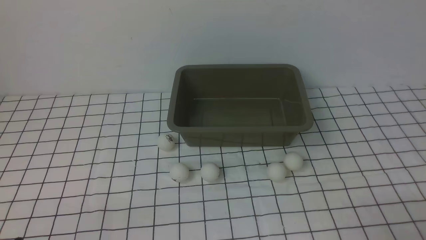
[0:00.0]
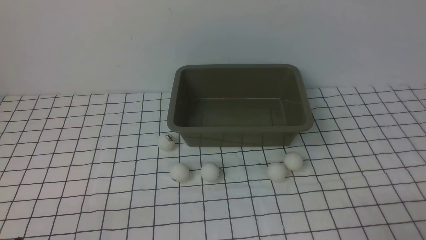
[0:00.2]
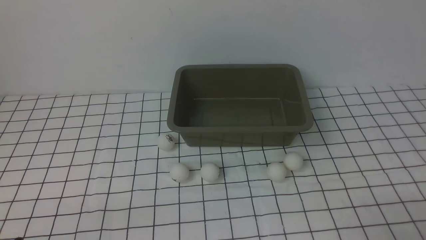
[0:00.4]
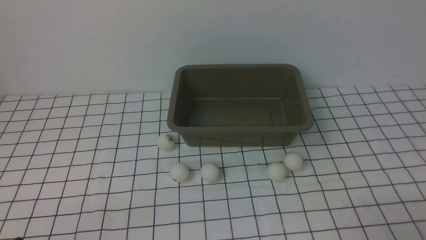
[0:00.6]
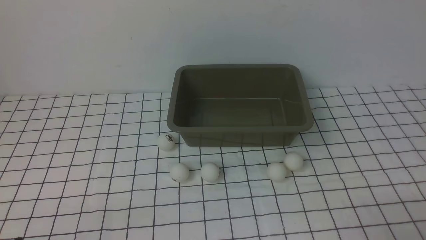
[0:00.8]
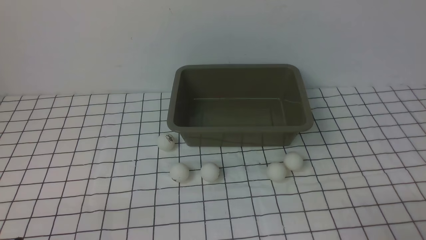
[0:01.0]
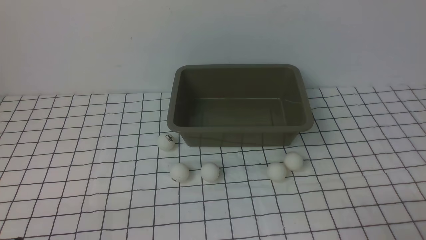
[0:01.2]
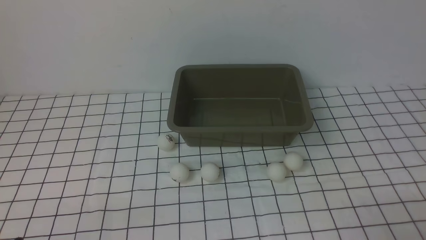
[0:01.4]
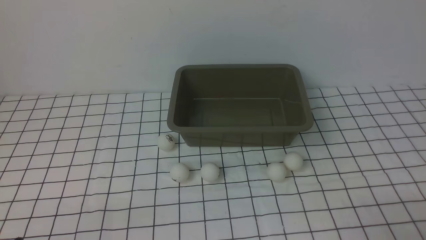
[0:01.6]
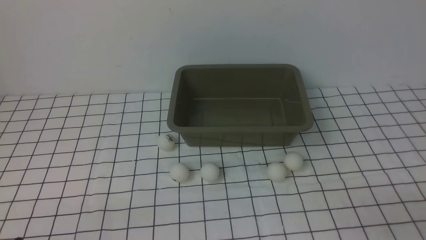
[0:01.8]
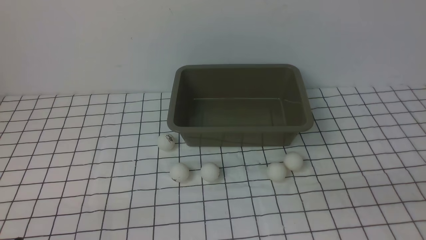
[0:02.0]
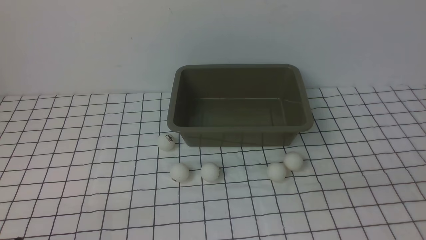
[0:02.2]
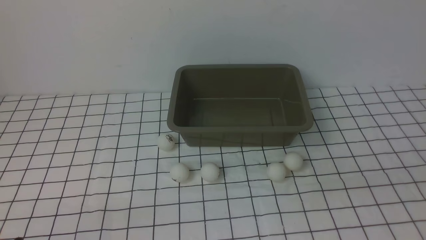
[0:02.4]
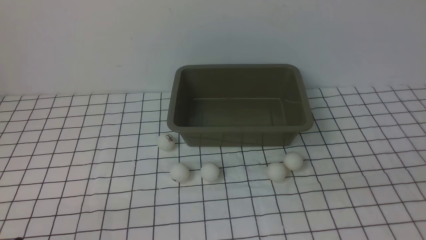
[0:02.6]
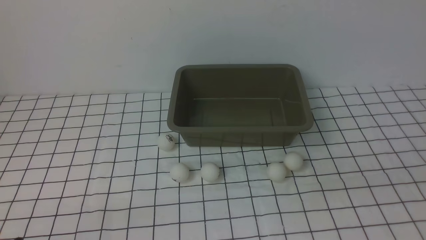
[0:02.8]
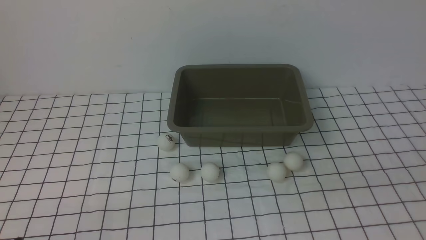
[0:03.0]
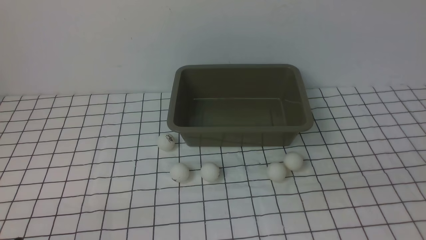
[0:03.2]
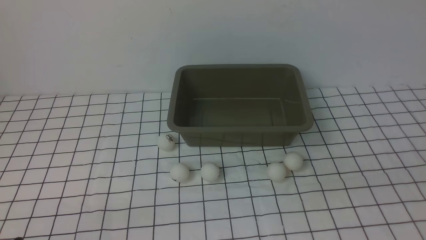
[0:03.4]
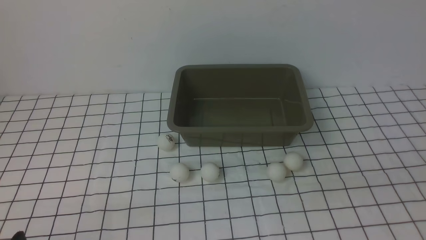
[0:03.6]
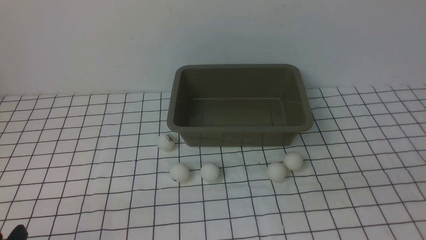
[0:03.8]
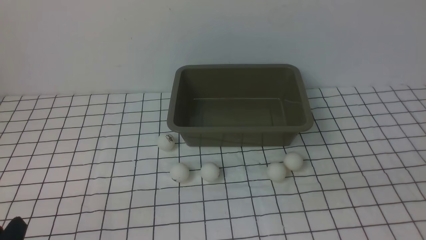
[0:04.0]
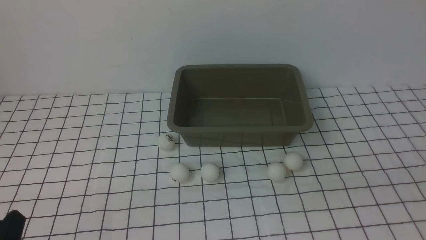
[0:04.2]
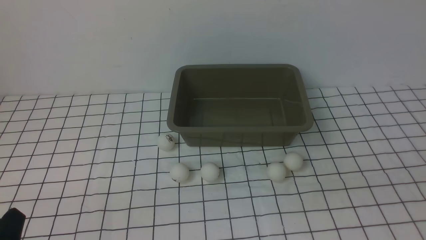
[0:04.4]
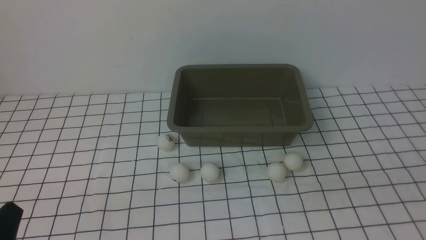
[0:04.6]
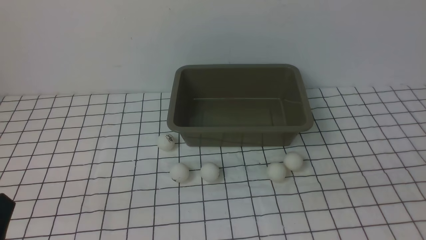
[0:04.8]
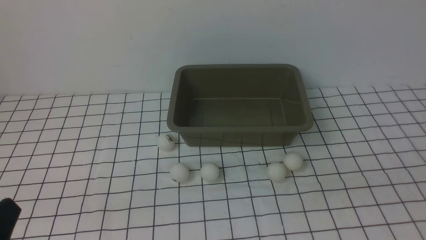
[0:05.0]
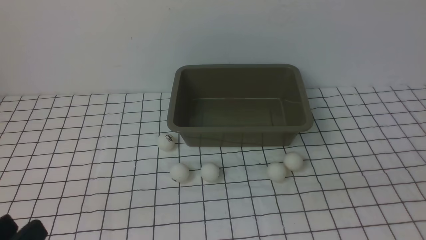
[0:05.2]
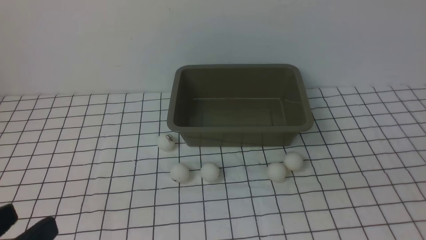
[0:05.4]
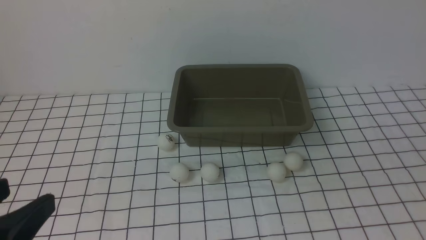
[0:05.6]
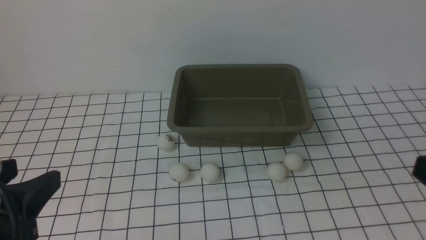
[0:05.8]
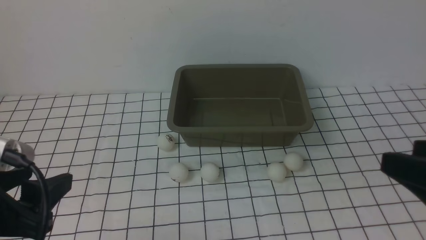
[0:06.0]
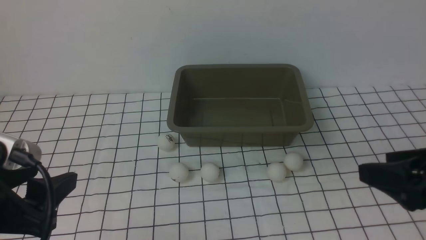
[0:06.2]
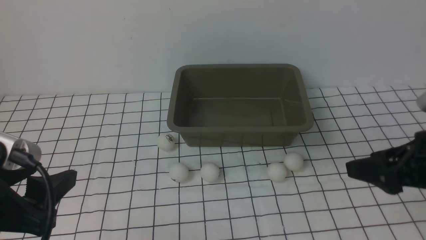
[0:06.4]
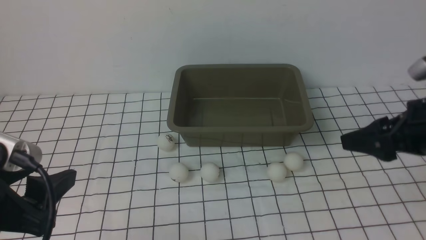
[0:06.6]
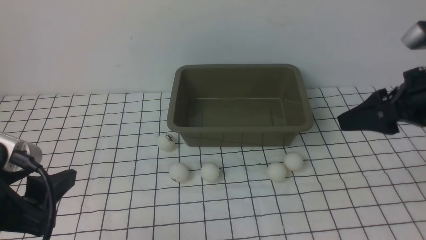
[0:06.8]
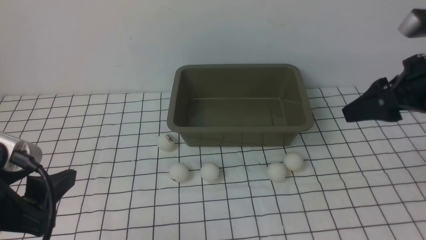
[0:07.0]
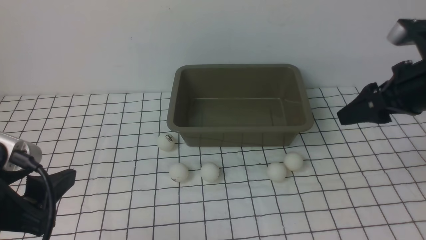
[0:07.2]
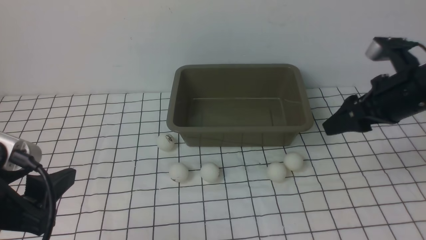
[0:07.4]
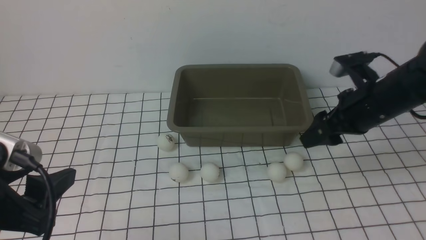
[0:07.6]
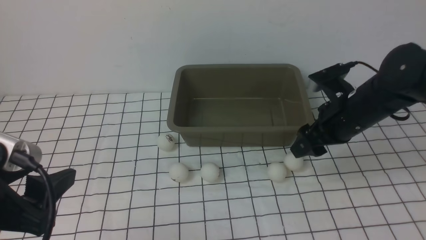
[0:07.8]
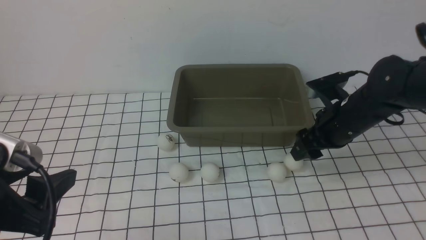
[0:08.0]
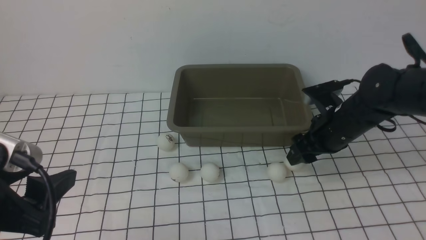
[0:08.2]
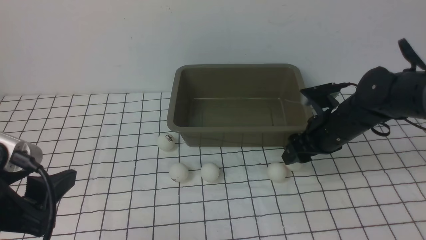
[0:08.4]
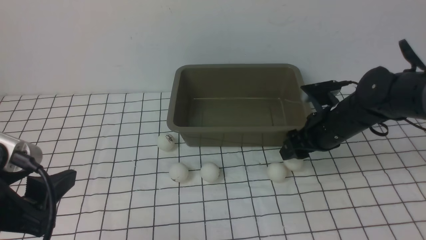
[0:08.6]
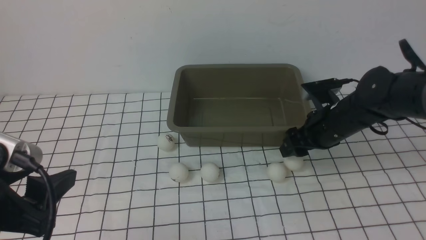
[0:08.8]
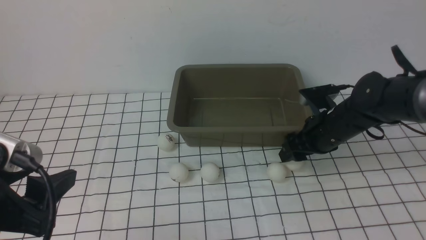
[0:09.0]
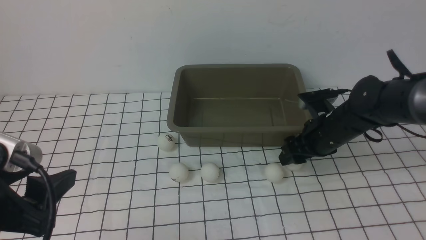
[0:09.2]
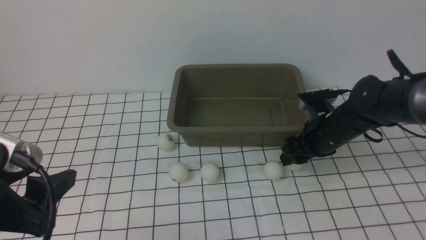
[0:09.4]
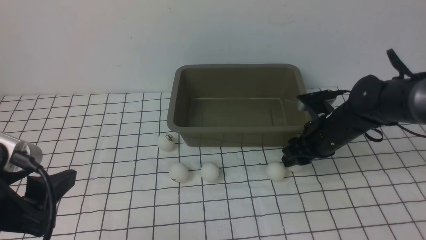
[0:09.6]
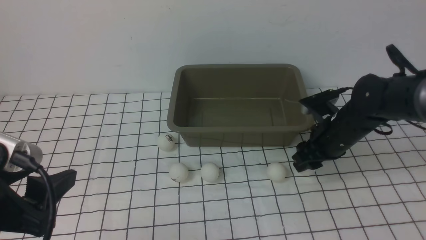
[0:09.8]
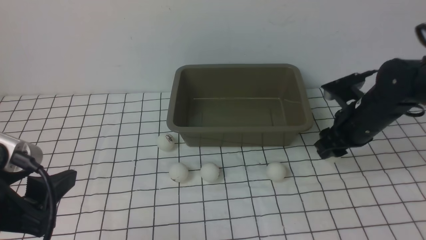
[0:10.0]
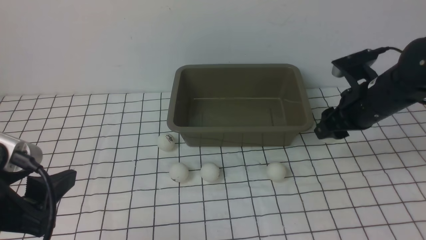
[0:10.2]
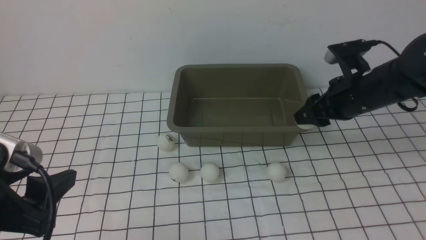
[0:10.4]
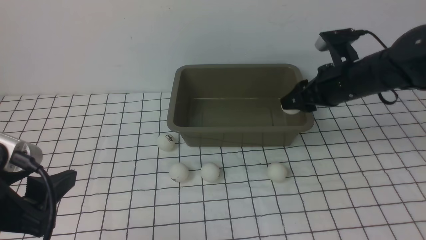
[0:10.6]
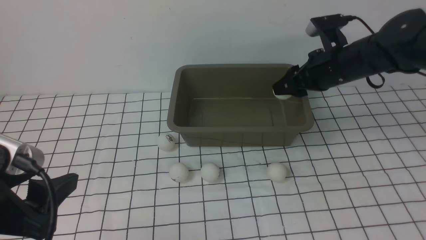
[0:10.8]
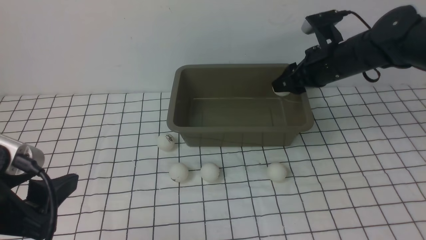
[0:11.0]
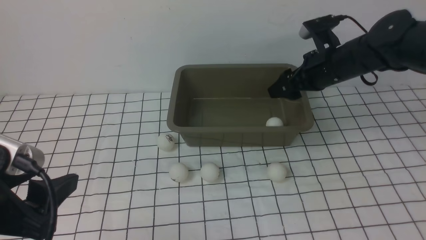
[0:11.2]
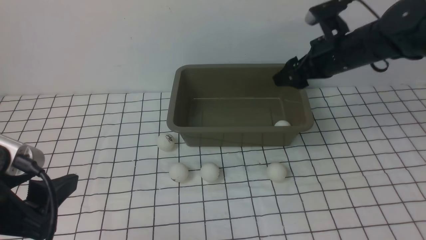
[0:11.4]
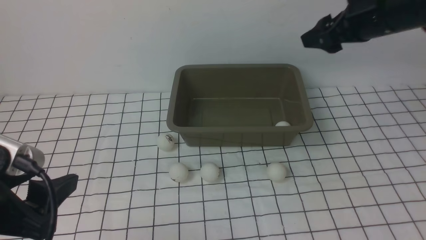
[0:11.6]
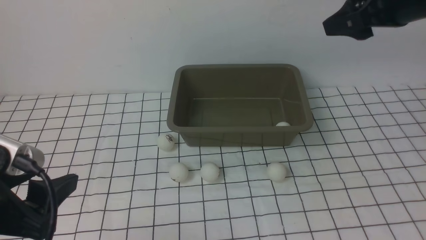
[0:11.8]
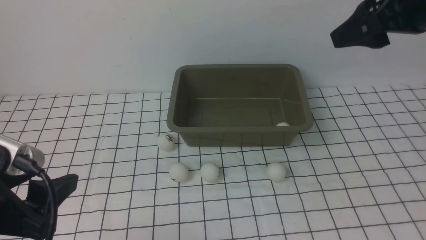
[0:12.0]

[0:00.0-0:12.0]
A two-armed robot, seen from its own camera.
Step, 0:00.0 to 0:10.0: use the right arm to clamp the table tennis ball closest to it.
Step, 0:10.2 to 0:11.2: use the right arm to put the table tennis ball into the box.
0:00.0 to 0:01.6: The two grippers keep their place.
0:04.4 to 0:06.0: The right gripper is displaced forward by about 10 cm. The left gripper moves upward and forward, about 10 cm, and opens.
0:06.0 to 0:07.6: The right gripper heads forward, covering roughly 20 cm.
0:07.6 to 0:09.0: The right gripper shifts about 10 cm downward.
0:09.0 to 0:10.4: The right gripper is displaced upward by approximately 10 cm, and closes.
0:10.4 to 0:12.0: The right gripper heads upward, covering roughly 15 cm, and opens up.

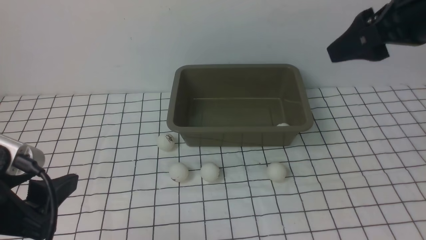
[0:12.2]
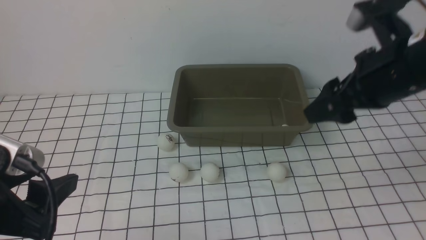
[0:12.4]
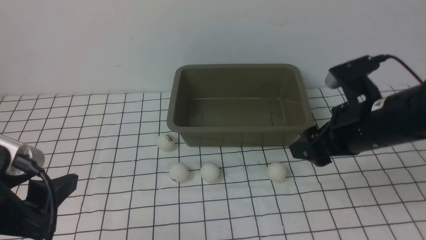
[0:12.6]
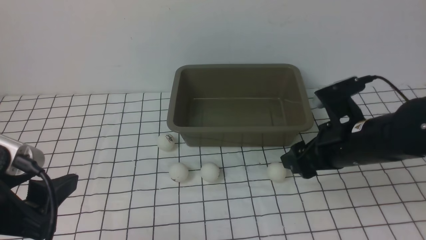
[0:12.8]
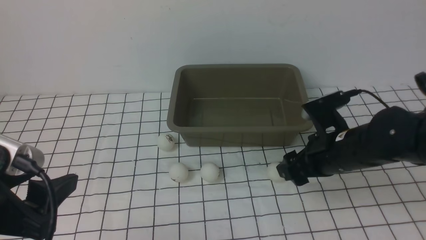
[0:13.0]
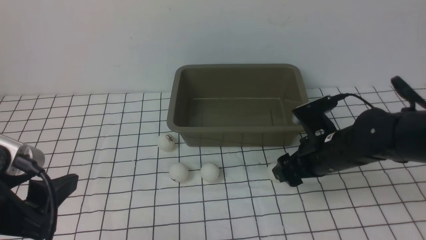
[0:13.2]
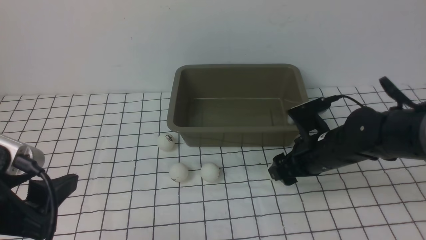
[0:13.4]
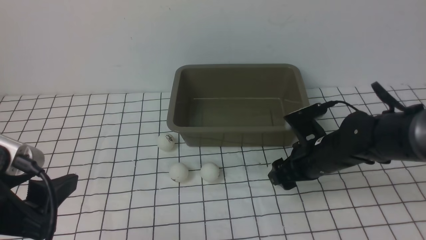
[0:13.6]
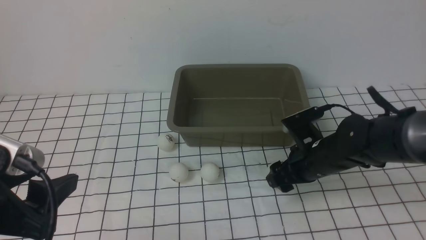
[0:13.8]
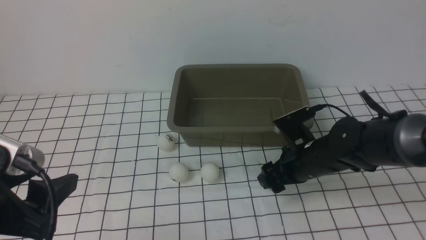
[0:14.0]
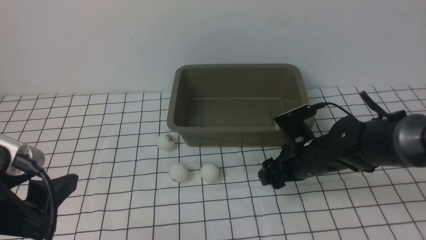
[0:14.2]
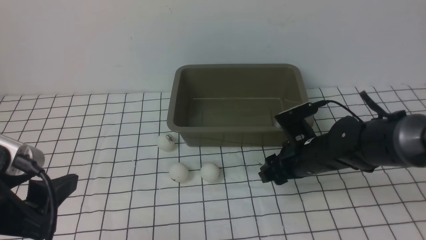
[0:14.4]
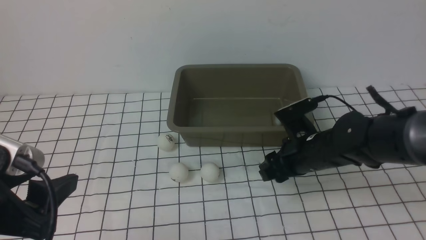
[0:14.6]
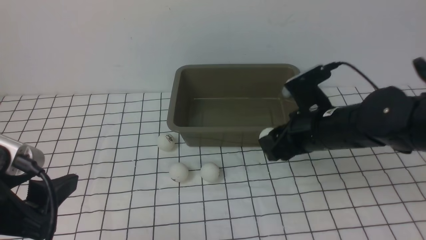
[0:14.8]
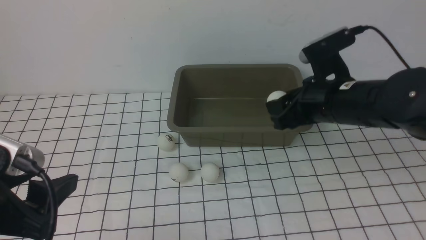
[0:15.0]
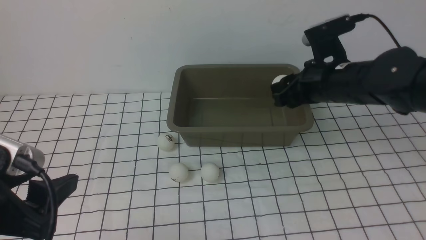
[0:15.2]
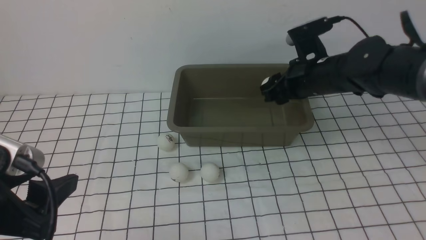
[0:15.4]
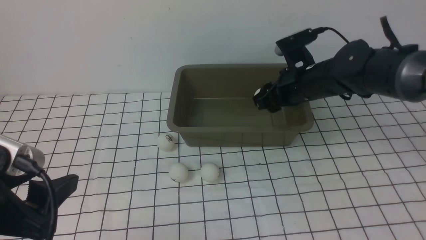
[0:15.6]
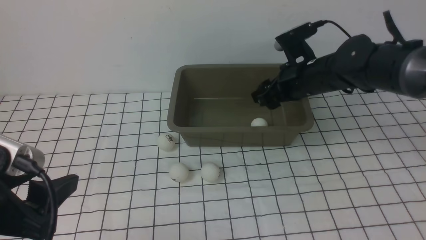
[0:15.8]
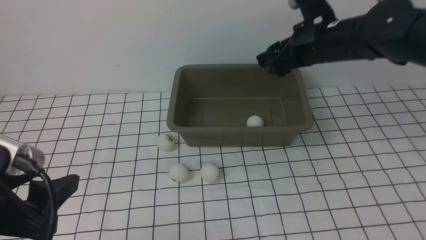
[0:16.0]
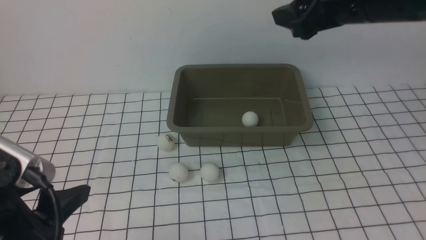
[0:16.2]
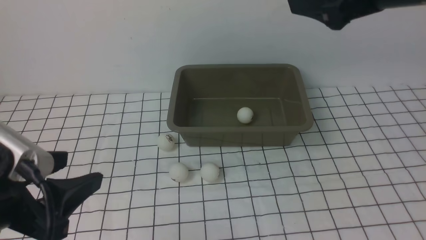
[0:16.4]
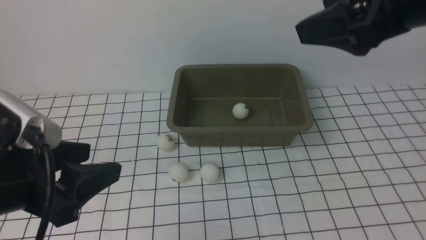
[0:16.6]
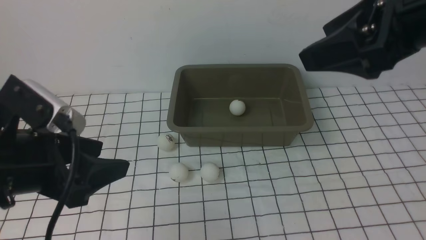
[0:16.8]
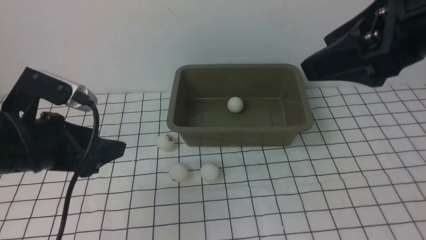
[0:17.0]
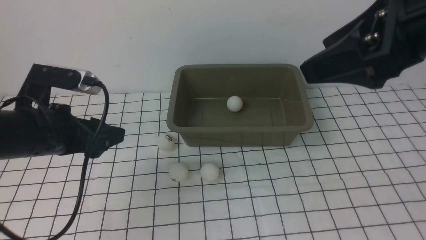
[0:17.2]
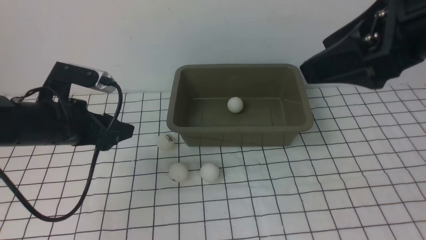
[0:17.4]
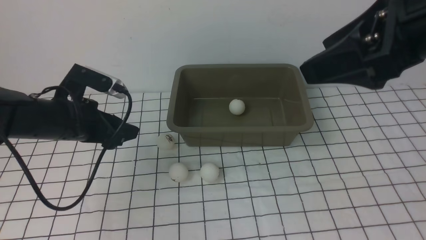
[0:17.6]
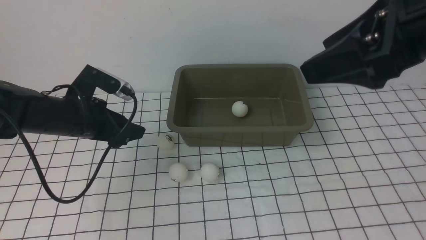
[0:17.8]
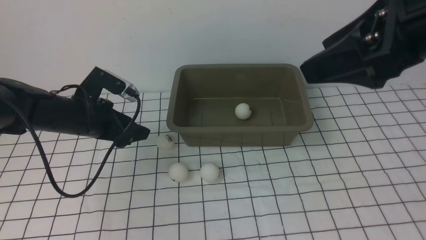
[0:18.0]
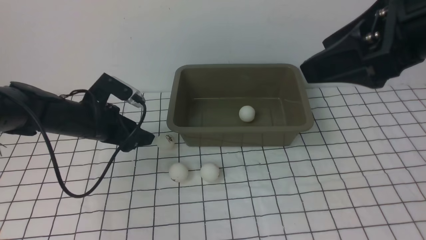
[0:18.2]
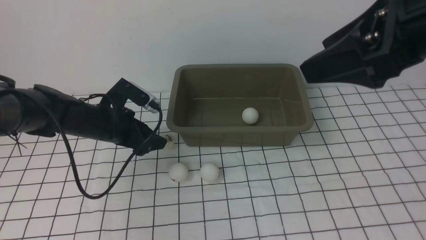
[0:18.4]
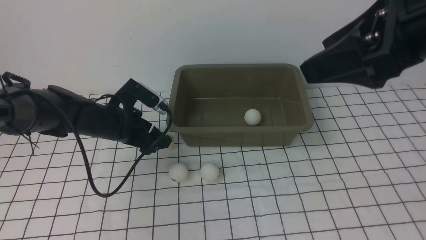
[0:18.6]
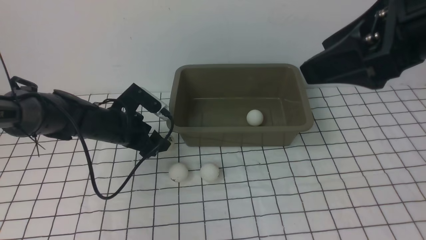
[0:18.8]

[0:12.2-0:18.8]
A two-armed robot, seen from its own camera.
Step, 0:12.2 to 0:14.8: use the right arm to clamp the table tennis ball closest to it.
Step, 0:15.0 to 0:15.8: use the right arm to put the table tennis ball into the box.
0:12.2 to 0:13.8: The right gripper heads downward, covering some 25 cm.
0:13.8 to 0:15.4: The right gripper is displaced upward and forward by about 15 cm, and closes its fingers.
0:15.4 to 0:17.2: The left gripper is displaced forward by some 15 cm. Meanwhile the right gripper shifts approximately 25 cm upward and backward, and opens.
0:17.2 to 0:18.8: The left gripper heads downward and forward, covering some 15 cm.
